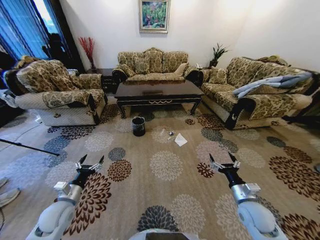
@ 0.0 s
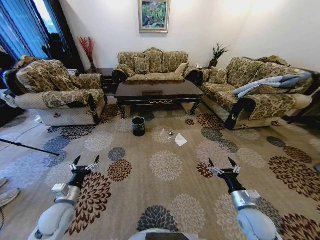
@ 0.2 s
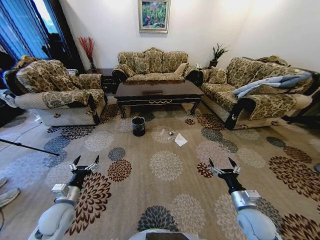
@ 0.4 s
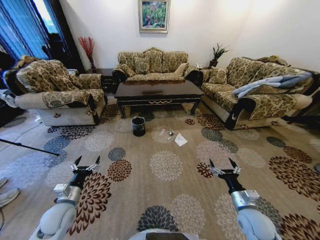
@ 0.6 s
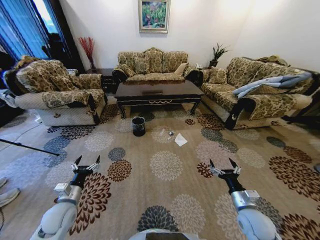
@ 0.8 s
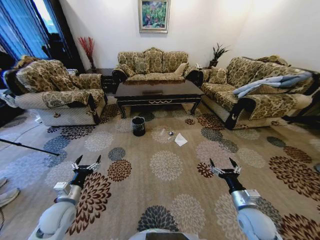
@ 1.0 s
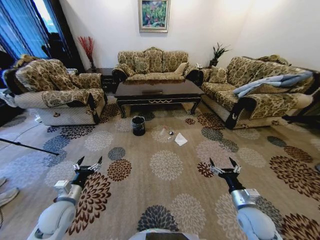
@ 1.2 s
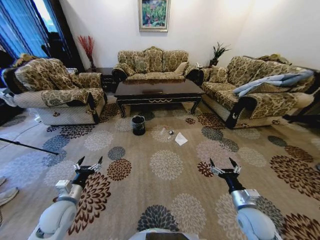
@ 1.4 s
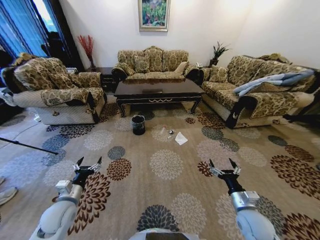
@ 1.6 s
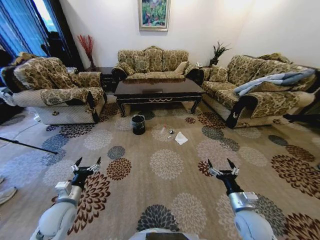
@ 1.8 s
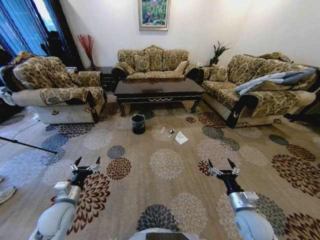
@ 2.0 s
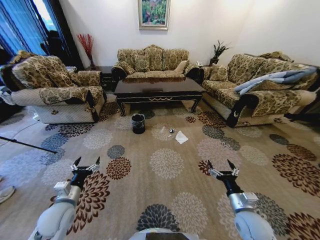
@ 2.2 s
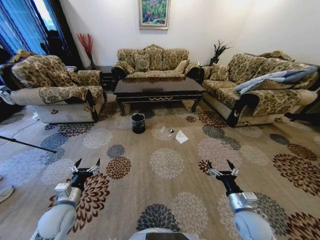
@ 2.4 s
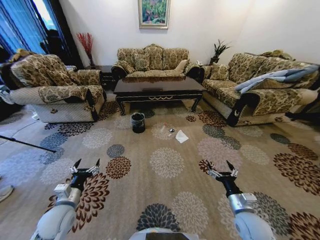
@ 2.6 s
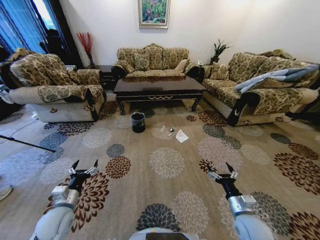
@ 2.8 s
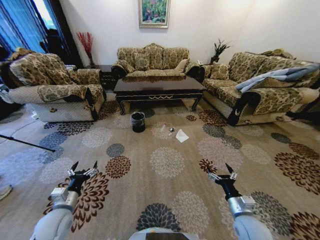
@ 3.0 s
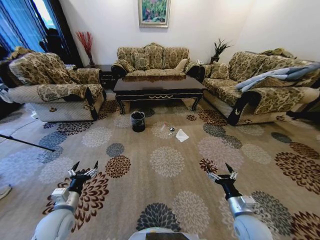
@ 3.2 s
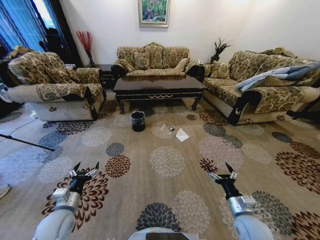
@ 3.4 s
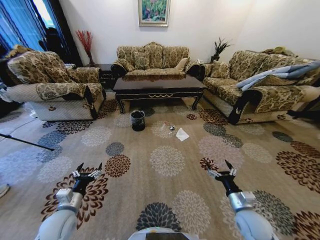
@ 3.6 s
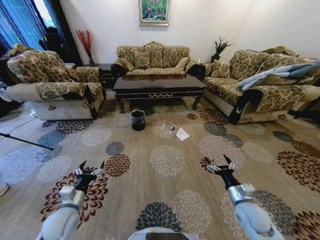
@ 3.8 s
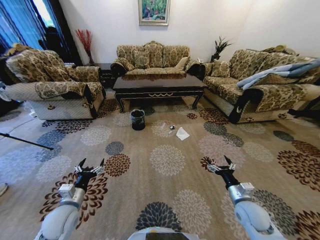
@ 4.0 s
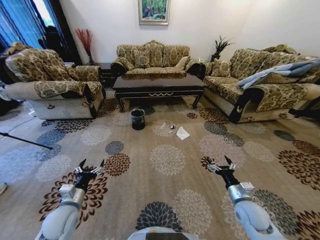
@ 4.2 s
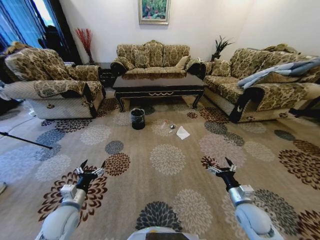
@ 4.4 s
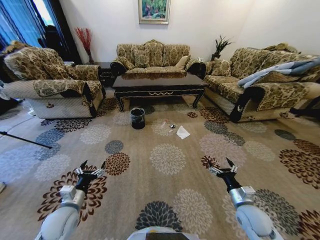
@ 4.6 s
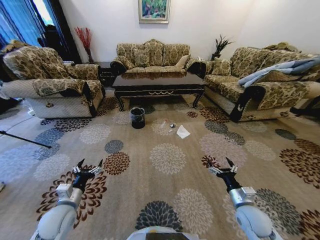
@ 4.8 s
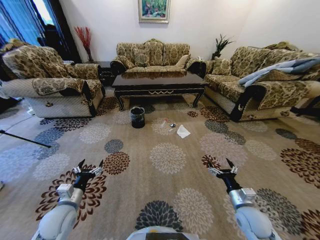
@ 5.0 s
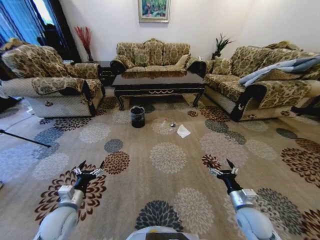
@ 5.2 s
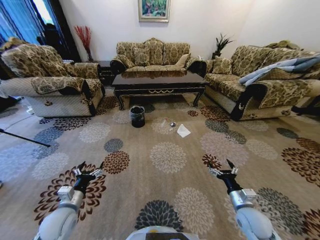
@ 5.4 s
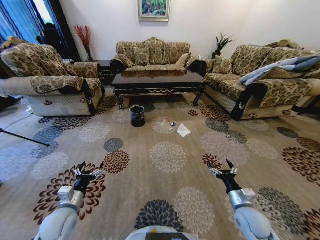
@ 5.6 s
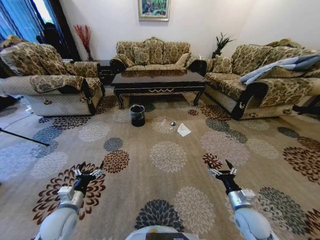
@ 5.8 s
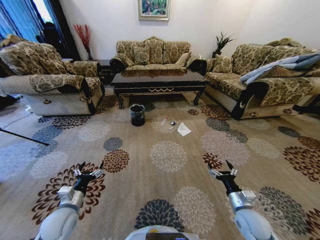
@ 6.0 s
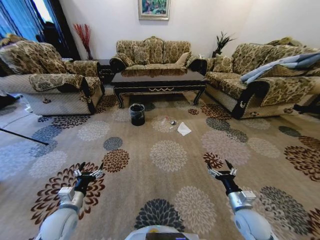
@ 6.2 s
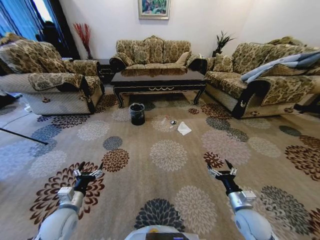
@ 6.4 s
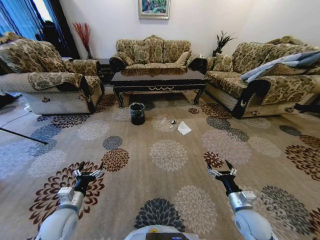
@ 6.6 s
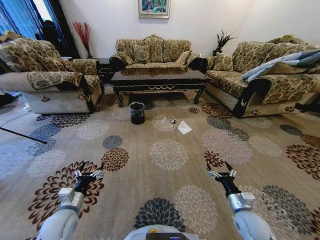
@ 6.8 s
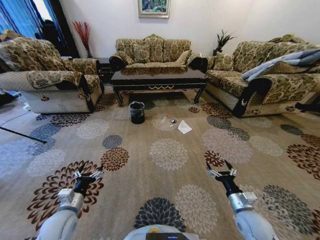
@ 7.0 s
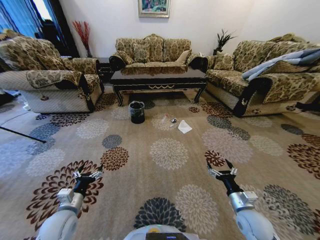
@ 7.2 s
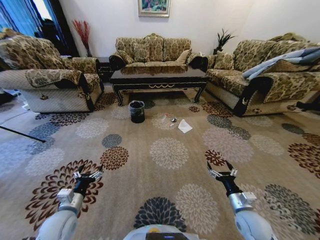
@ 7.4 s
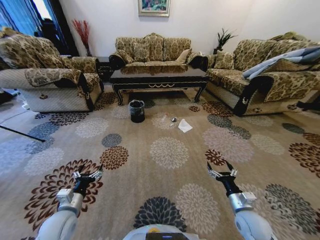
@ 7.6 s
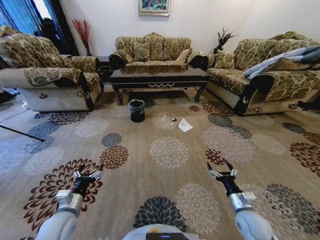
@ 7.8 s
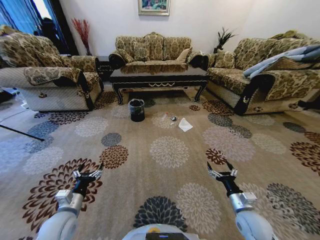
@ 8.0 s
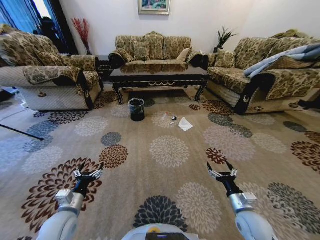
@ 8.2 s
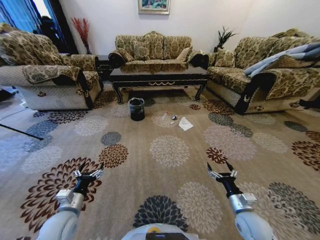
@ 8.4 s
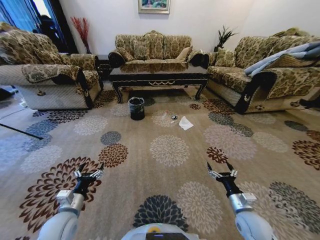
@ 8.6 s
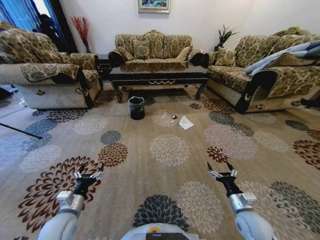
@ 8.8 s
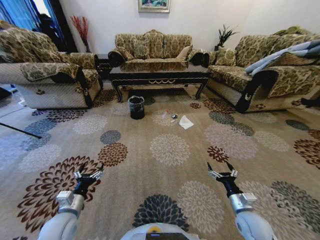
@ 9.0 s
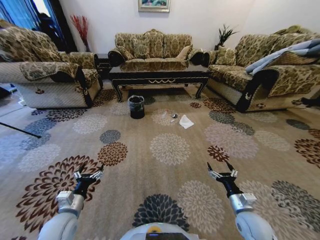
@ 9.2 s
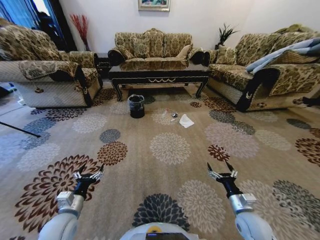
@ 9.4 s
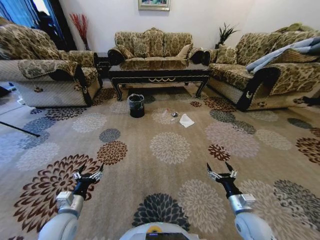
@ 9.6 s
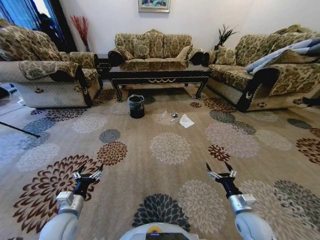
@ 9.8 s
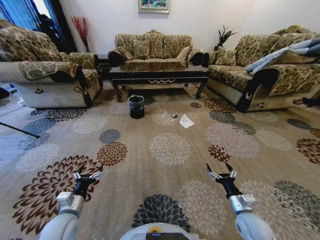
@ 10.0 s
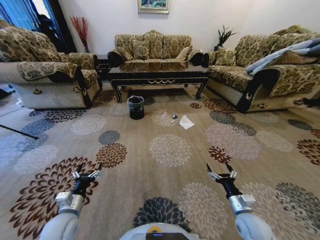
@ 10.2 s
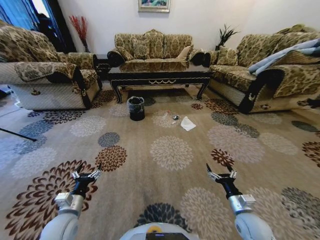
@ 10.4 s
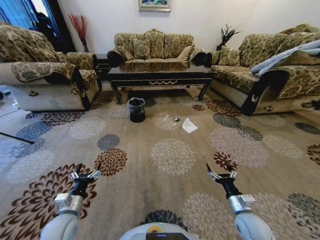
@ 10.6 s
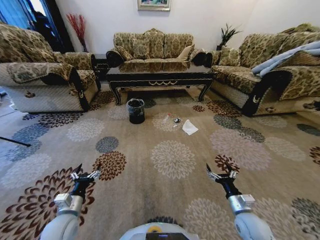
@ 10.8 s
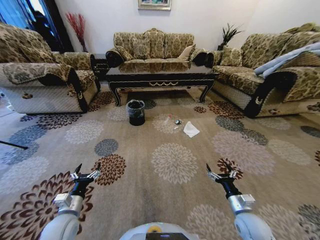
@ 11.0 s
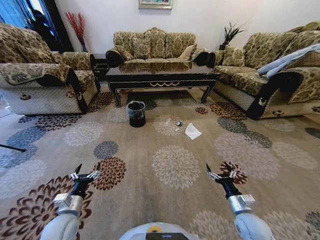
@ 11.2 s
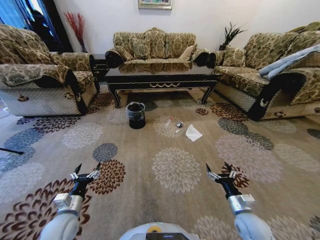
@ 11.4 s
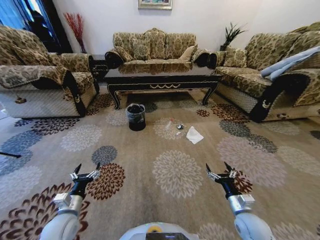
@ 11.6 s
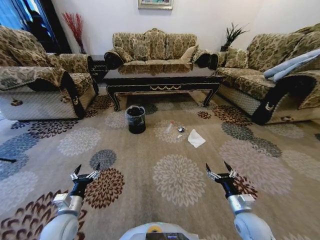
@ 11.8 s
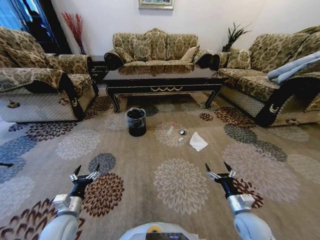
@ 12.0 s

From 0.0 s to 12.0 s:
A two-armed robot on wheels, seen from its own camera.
Task of the whole recording: Move to the front of the table and pick up the trash from the floor, then place it into the trash bin.
From 9.0 s to 10.4 s: Both grippers stay put.

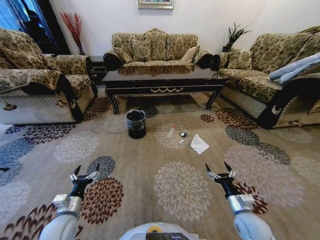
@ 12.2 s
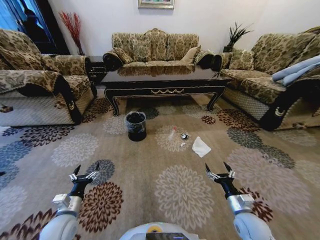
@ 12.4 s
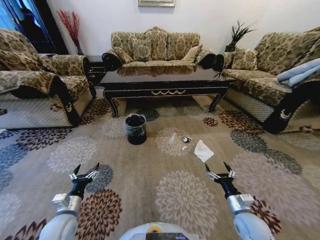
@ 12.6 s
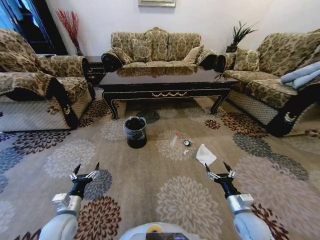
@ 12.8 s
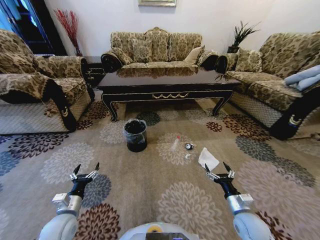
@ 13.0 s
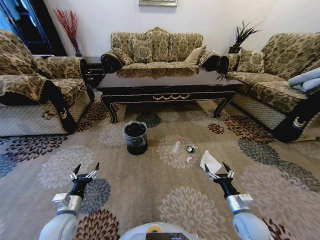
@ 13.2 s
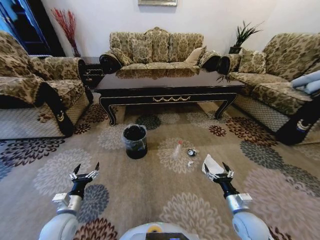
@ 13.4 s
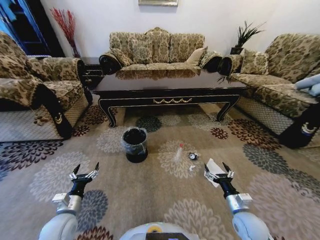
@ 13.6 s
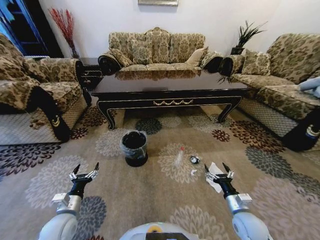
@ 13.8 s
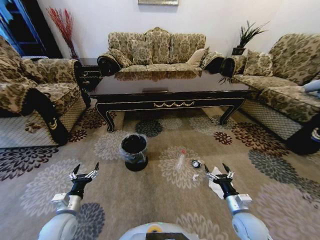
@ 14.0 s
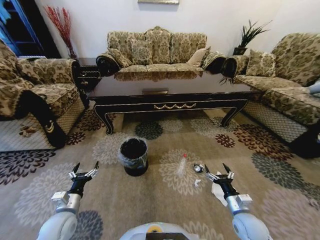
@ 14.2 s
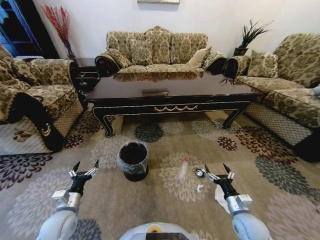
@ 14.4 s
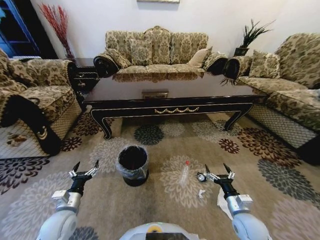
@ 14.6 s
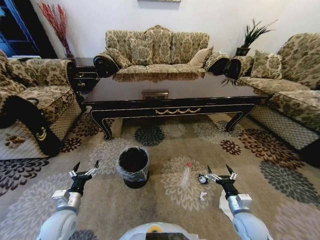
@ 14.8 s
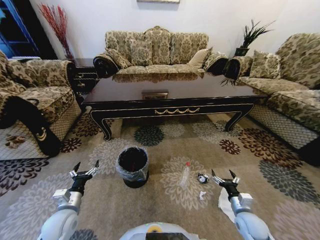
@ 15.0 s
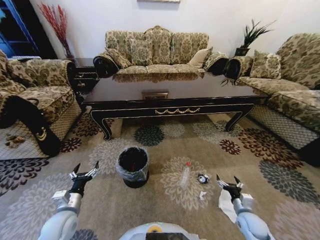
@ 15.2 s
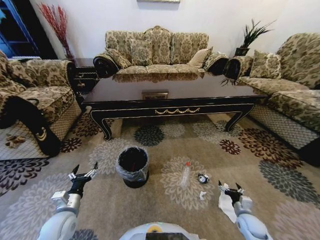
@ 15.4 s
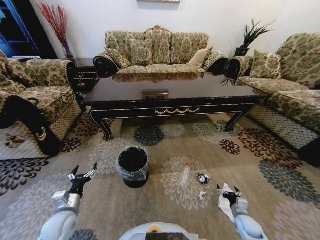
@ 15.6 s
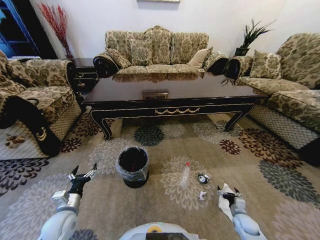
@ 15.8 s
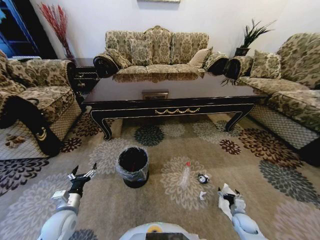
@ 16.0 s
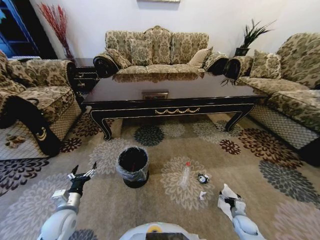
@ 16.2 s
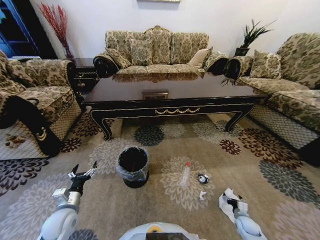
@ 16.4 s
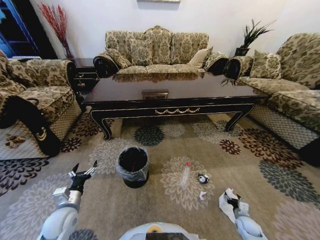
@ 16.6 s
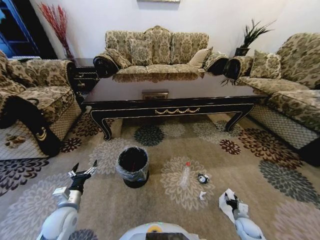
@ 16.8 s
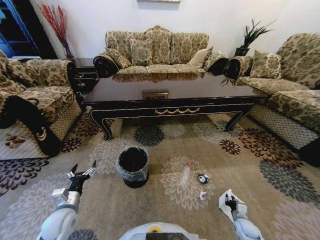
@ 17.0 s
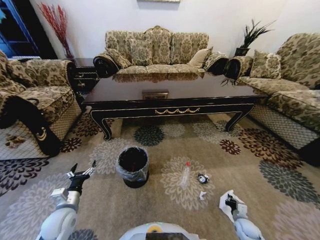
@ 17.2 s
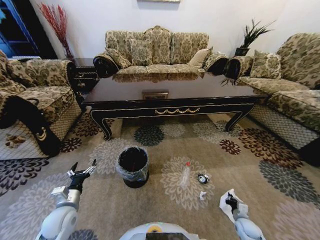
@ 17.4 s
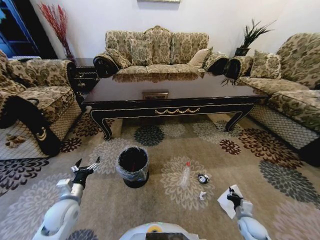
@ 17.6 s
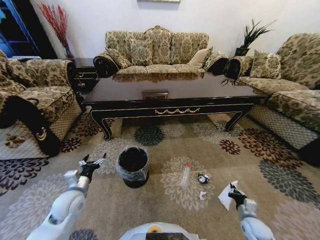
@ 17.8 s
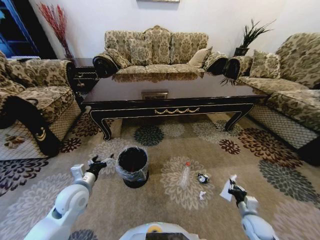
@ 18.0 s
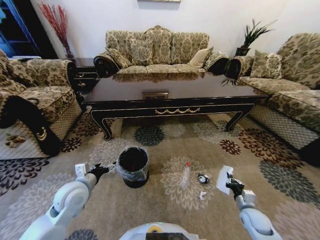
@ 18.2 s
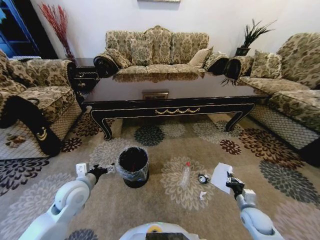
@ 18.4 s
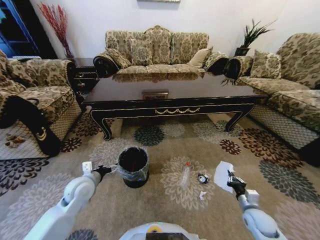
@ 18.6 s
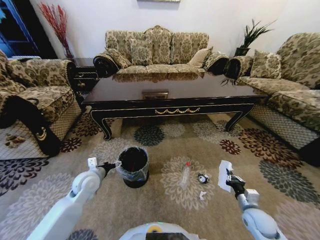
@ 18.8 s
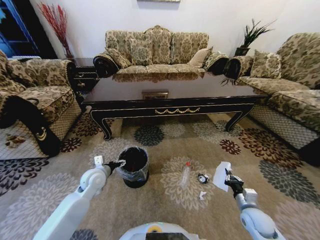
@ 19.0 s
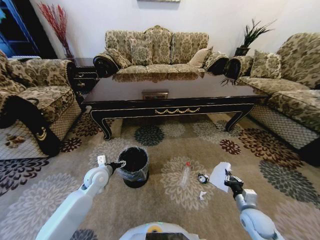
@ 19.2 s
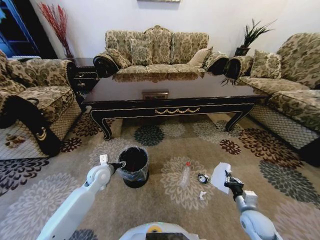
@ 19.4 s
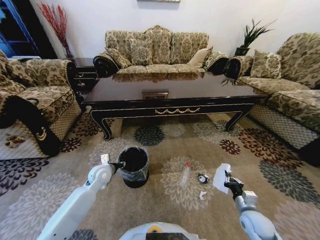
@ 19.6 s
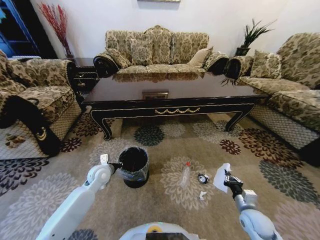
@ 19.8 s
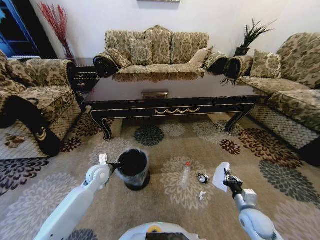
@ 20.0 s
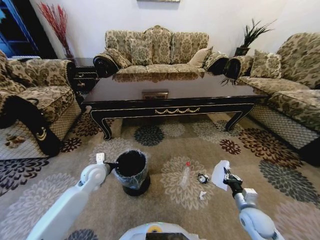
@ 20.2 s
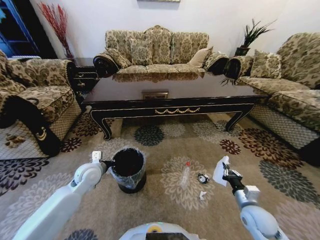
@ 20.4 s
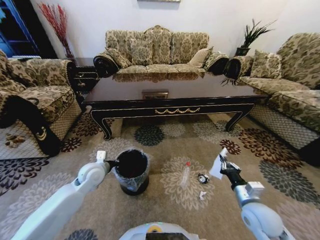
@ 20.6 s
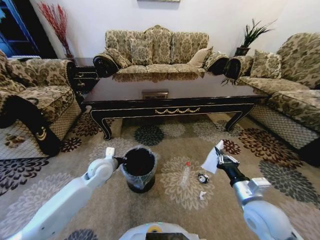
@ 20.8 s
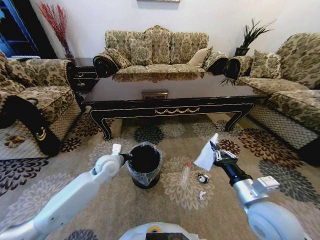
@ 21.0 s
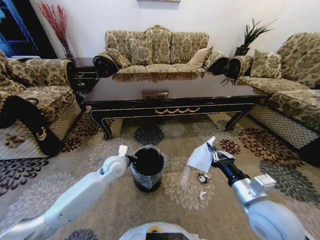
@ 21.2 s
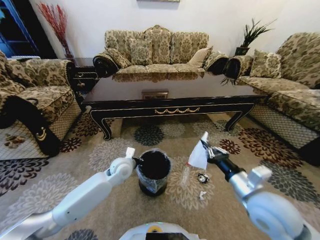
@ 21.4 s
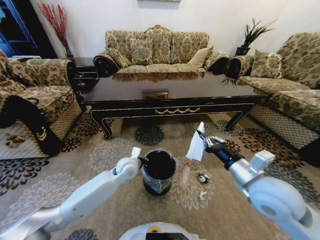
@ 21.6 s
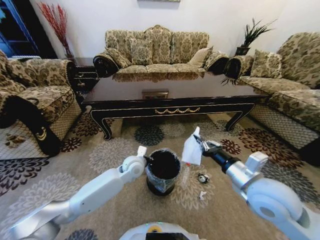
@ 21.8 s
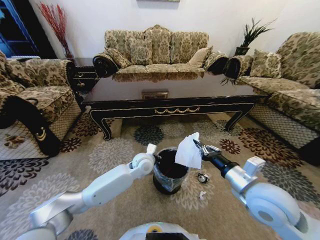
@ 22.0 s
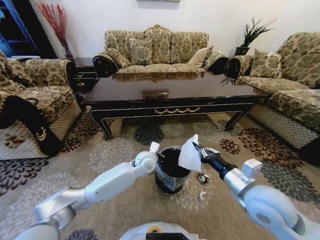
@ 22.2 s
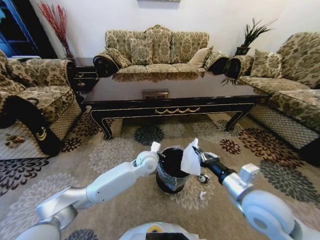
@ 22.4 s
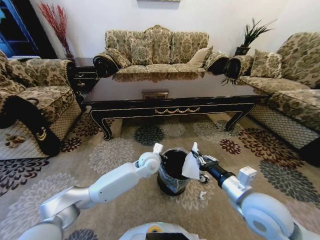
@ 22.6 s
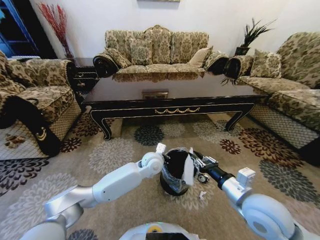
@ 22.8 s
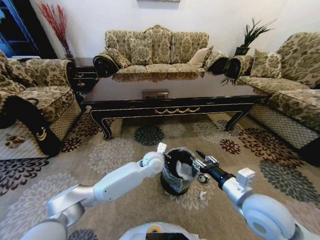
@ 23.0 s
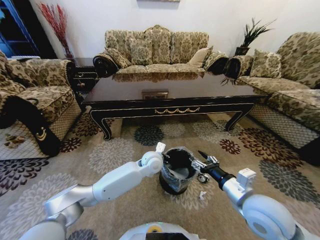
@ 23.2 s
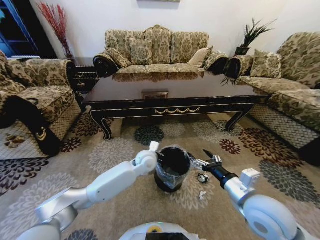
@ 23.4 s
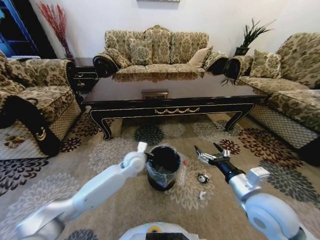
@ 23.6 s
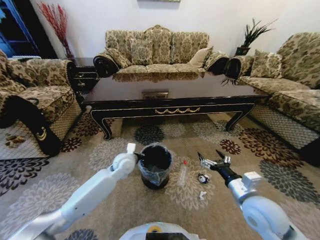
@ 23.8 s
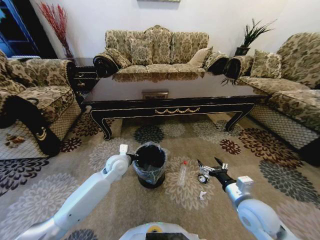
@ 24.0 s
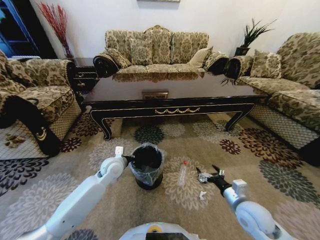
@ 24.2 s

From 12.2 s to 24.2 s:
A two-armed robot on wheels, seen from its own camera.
Task of the whole recording: Move to the front of the table and pick up the trash from the floor, then place it into the trash bin.
From 13.8 s to 15.2 s: The right gripper is displaced downward and to the right by roughly 10 cm.
From 15.2 s to 16.6 s: The right gripper travels downward by some 10 cm.
From 16.6 s to 18.2 s: The left gripper goes approximately 15 cm upward, to the right and forward, while the right gripper shifts about 10 cm upward, and closes.
From 18.2 s to 19.8 s: The right gripper changes place by some 5 cm. The left gripper goes roughly 15 cm forward and downward, and closes up.
From 19.8 s to 21.2 s: The left gripper travels to the right by roughly 10 cm. The right gripper travels upward and to the left by approximately 25 cm.
From 21.2 s to 22.6 s: The left gripper moves to the right, some 15 cm.
From 22.6 s to 24.2 s: The left gripper is displaced to the left by some 15 cm. Meanwhile the right gripper shifts some 15 cm downward and to the right, and opens its fingers.
